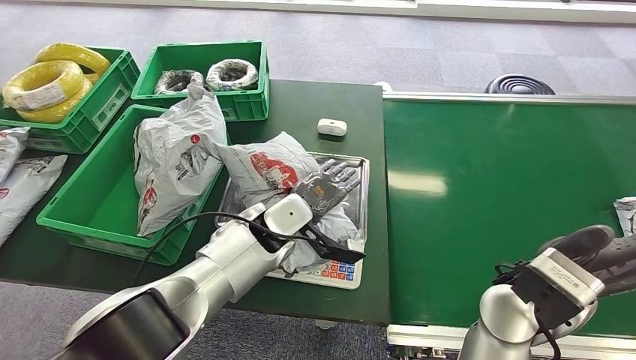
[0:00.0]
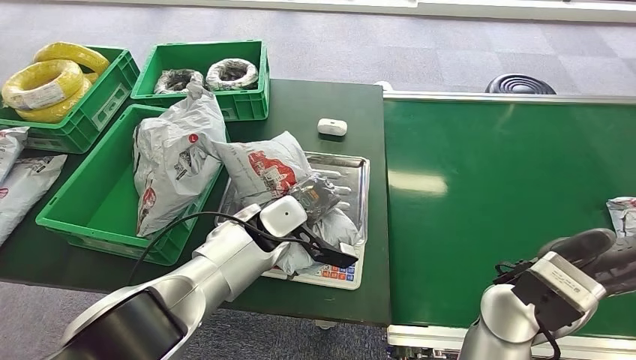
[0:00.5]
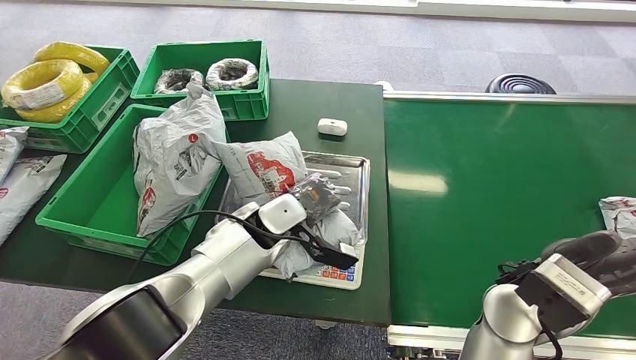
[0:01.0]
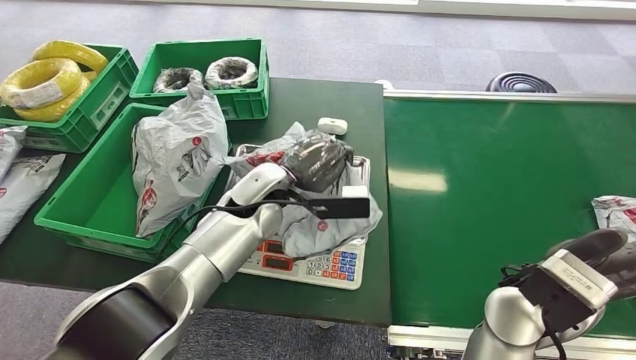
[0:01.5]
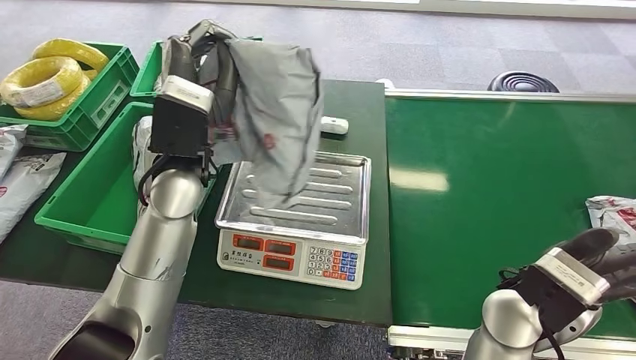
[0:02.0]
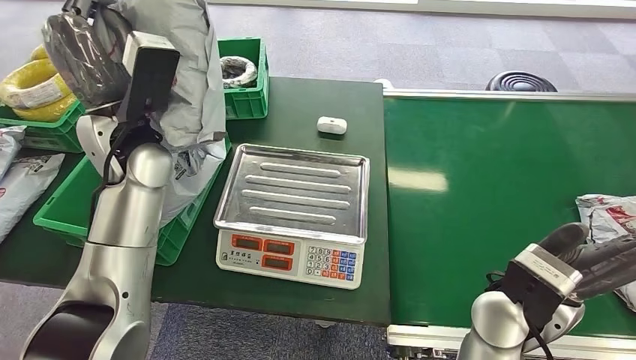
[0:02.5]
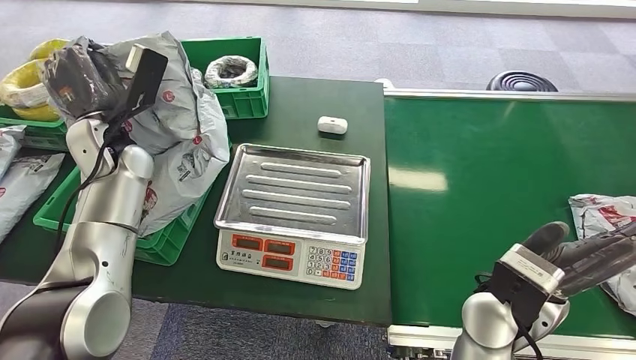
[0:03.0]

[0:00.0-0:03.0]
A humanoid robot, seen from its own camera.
Step, 0:00.0 to 0:02.0: Pick up the package from the inbound machine.
Step, 0:02.5 to 0:03.0: Place the package into the parcel locker.
